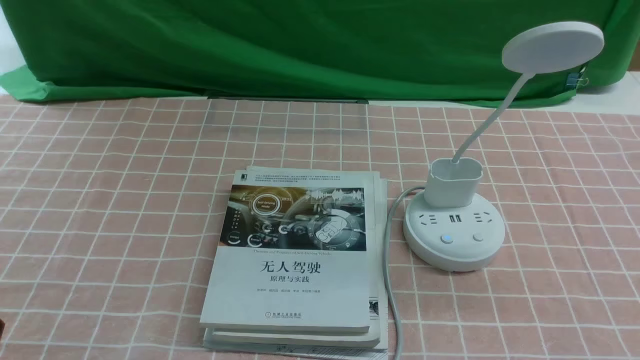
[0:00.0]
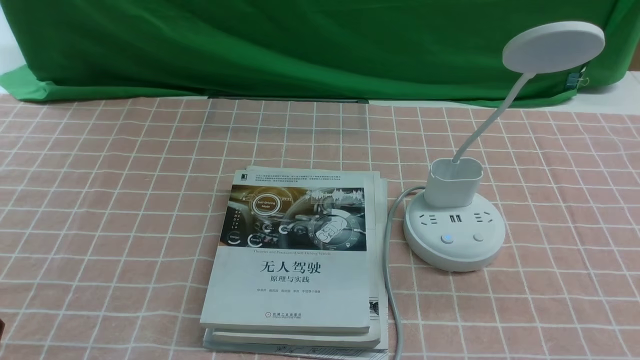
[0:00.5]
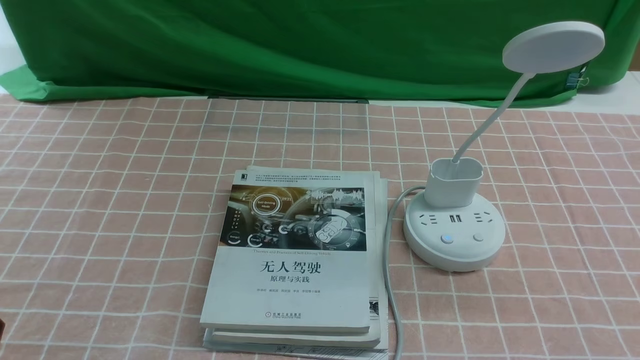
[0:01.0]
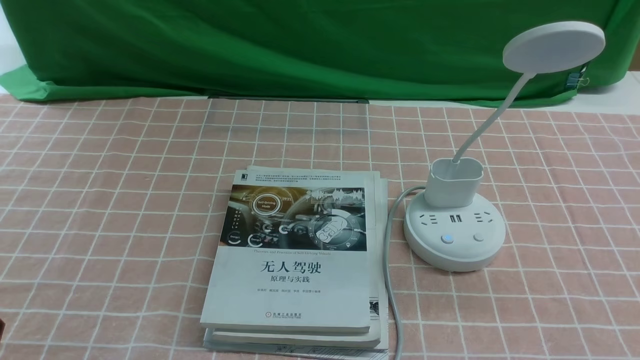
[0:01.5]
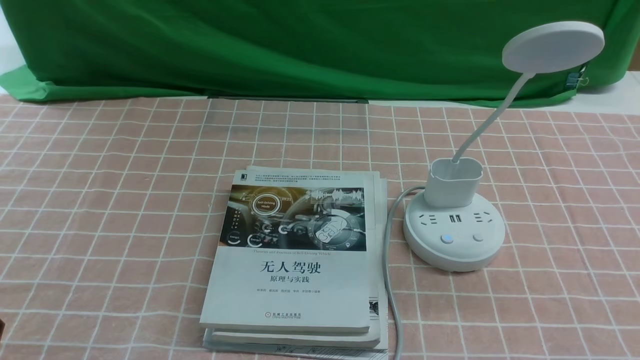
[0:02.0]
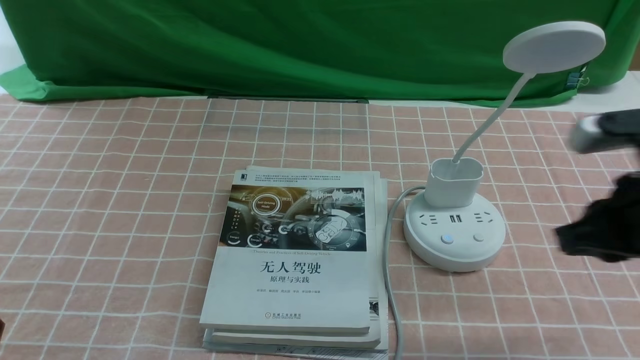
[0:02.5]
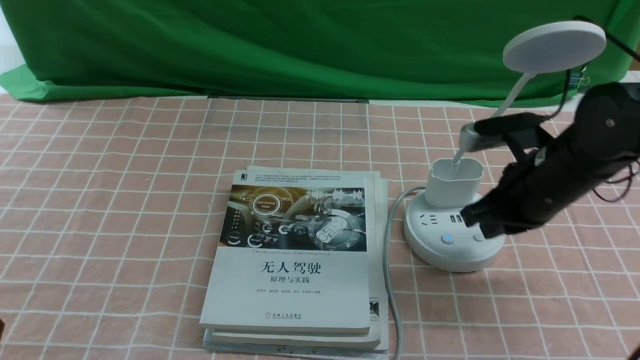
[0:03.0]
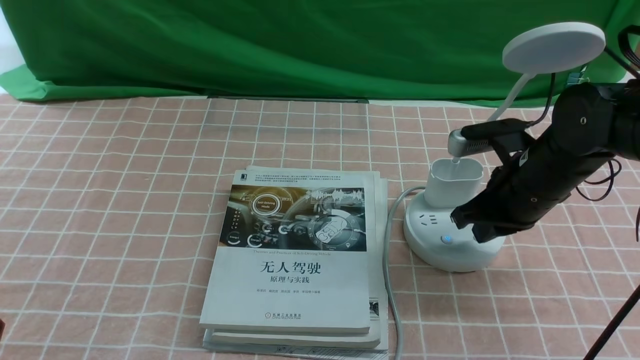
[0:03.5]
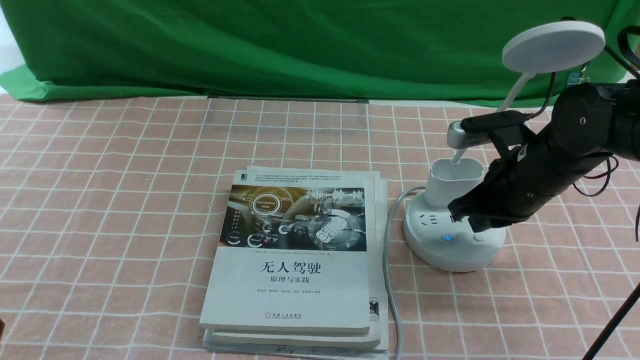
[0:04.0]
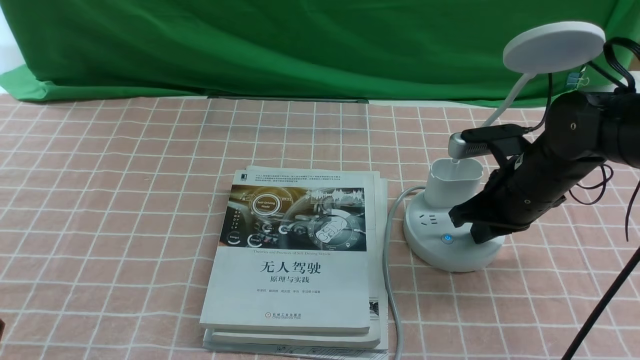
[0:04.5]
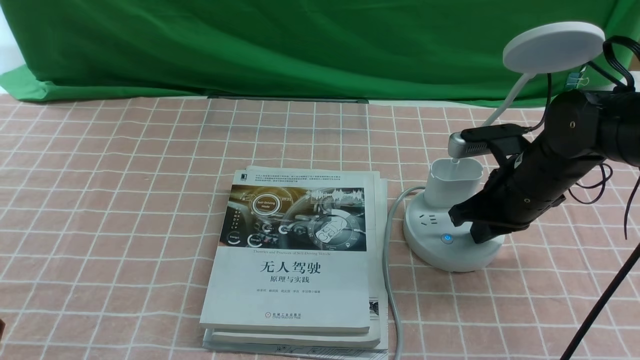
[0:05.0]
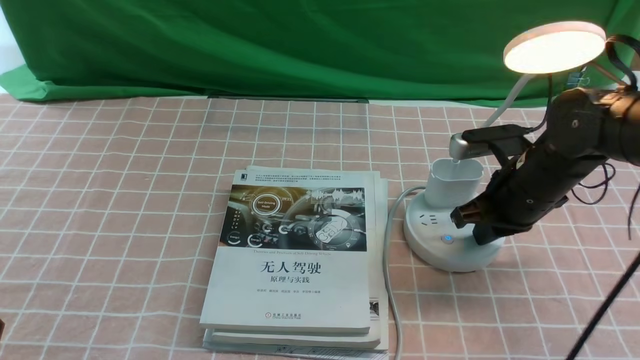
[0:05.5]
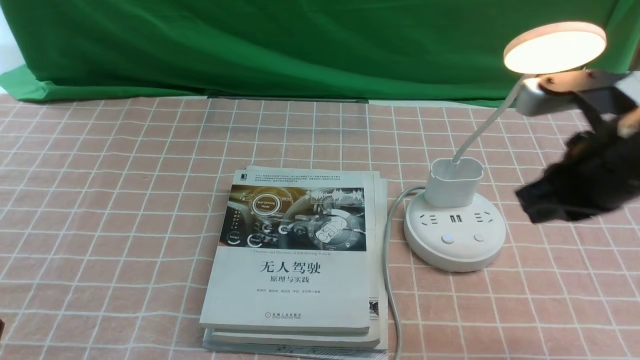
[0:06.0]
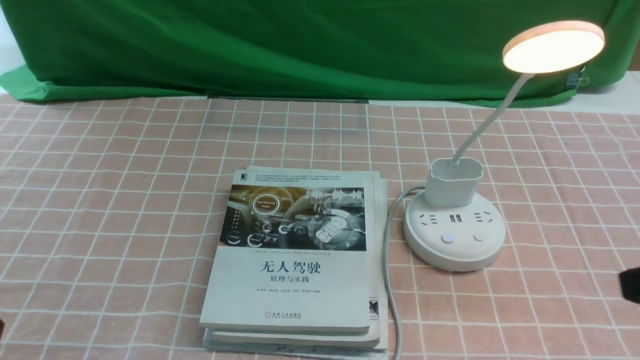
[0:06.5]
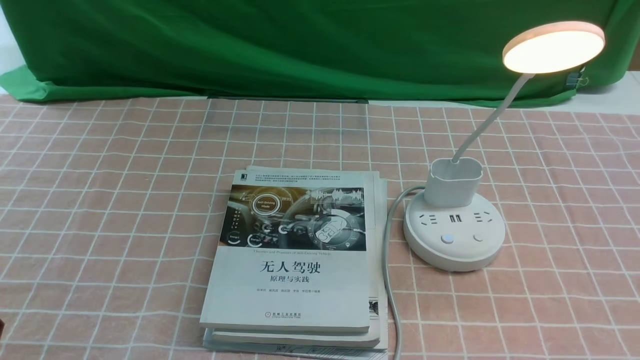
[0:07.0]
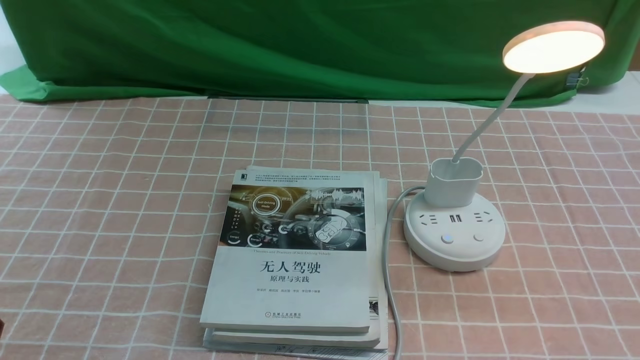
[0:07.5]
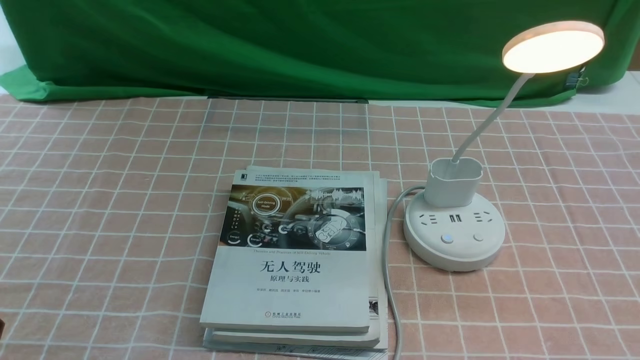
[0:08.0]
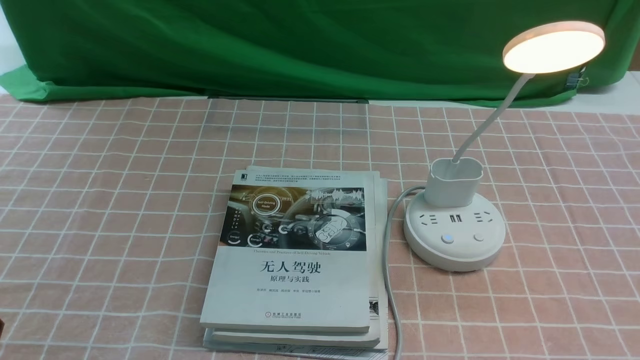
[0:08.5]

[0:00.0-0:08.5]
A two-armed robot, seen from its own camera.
Step, 0:00.0 to 0:05.5: use the right arm to press the button switch on the lamp holder.
0:02.0 to 0:04.0: The right gripper shifts roughly 25 cm forward and to the left.
0:04.0 to 0:06.5: The right gripper moves backward and upward, roughly 25 cm.

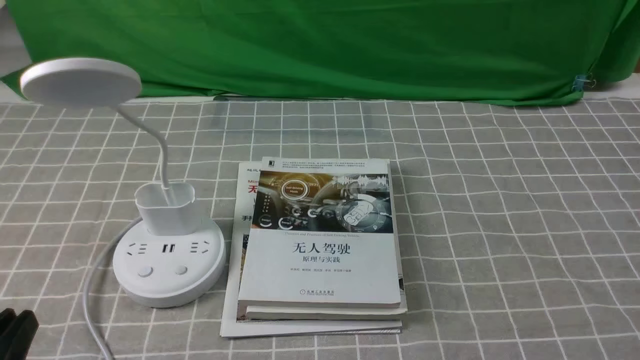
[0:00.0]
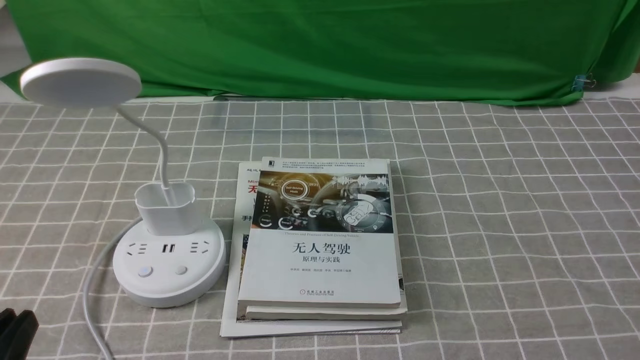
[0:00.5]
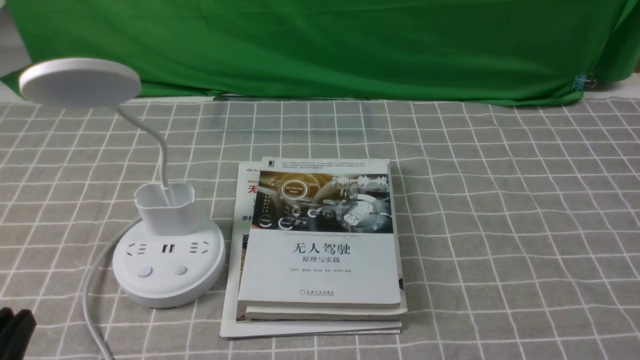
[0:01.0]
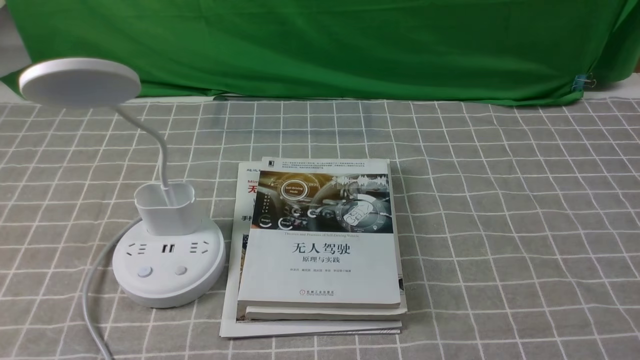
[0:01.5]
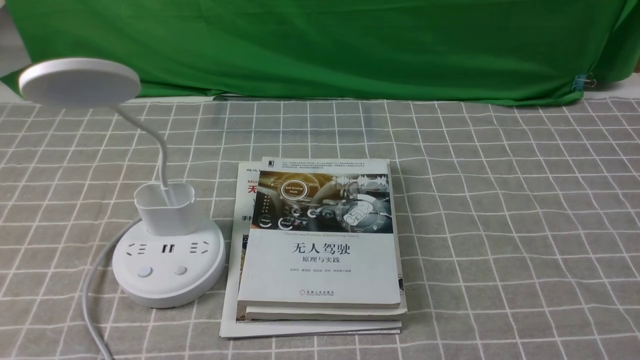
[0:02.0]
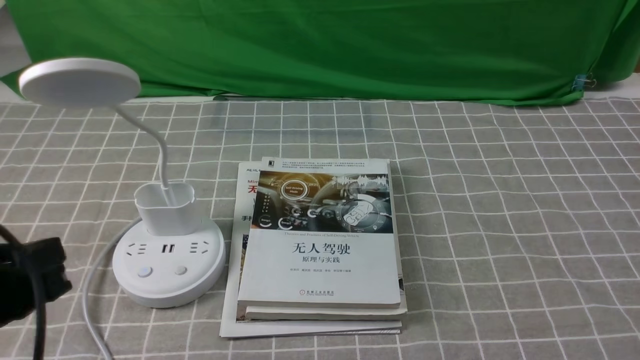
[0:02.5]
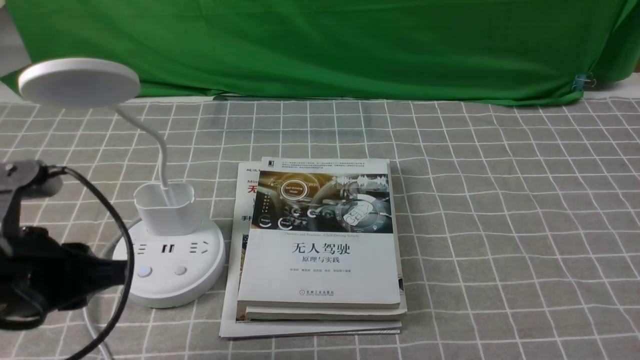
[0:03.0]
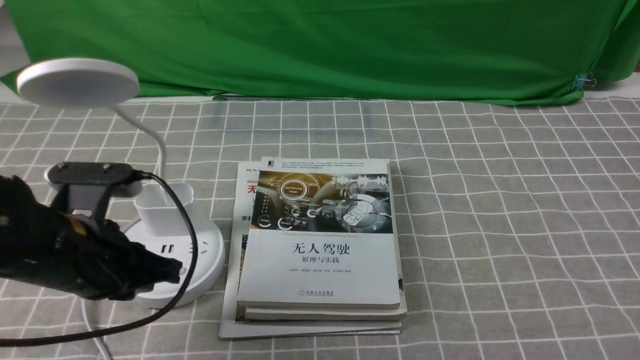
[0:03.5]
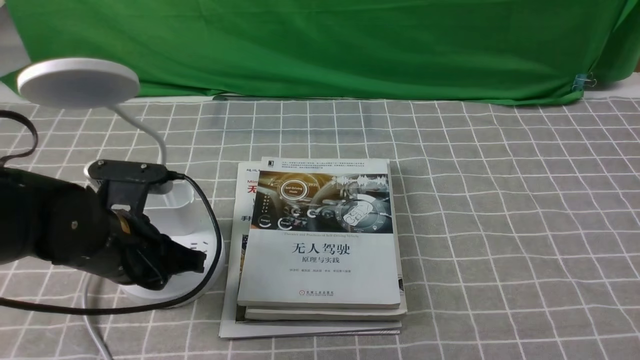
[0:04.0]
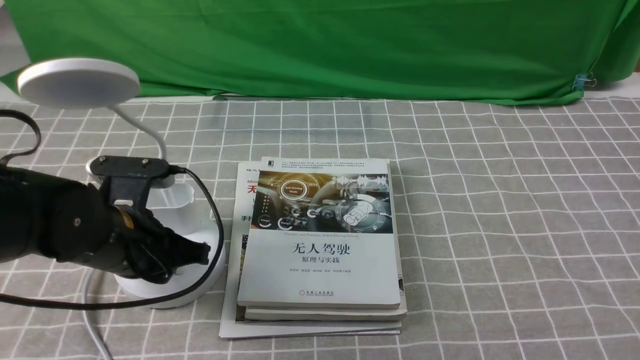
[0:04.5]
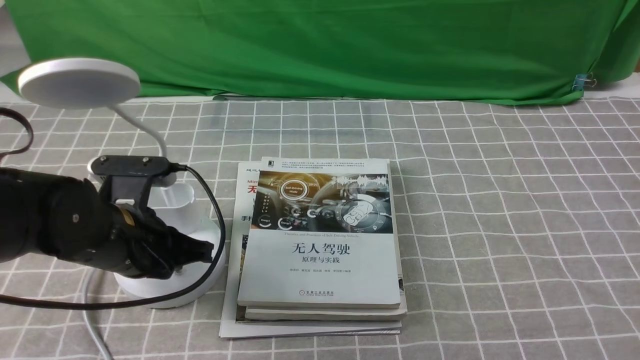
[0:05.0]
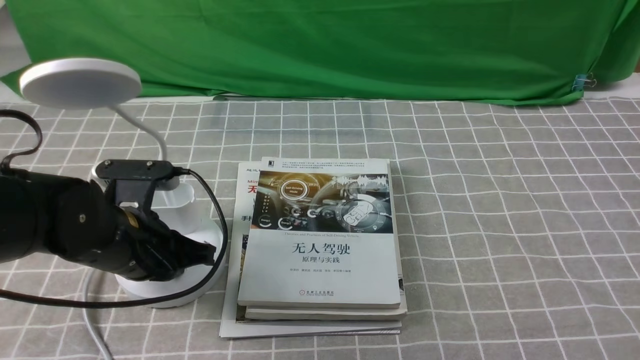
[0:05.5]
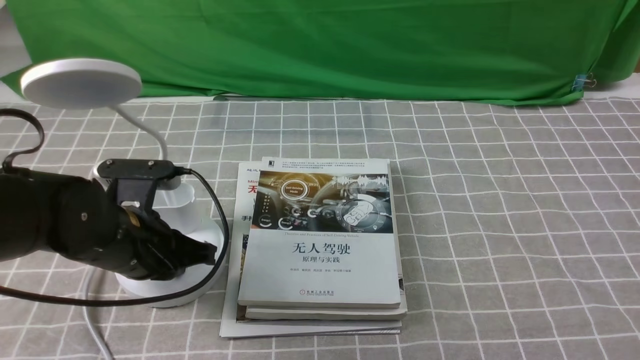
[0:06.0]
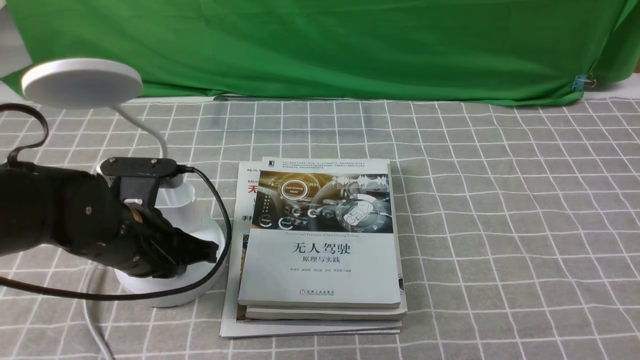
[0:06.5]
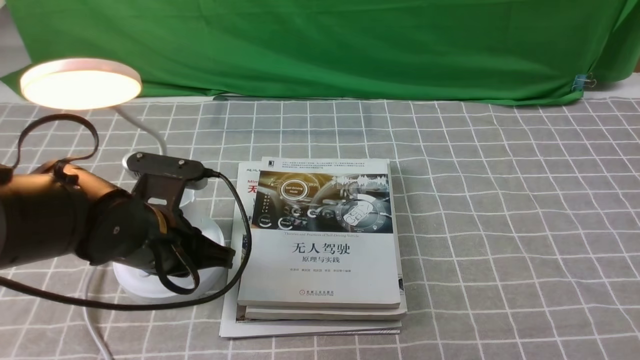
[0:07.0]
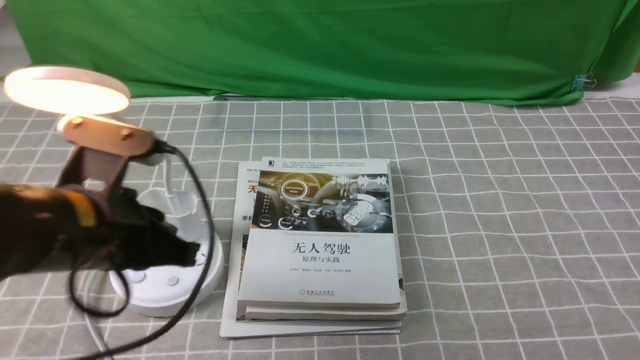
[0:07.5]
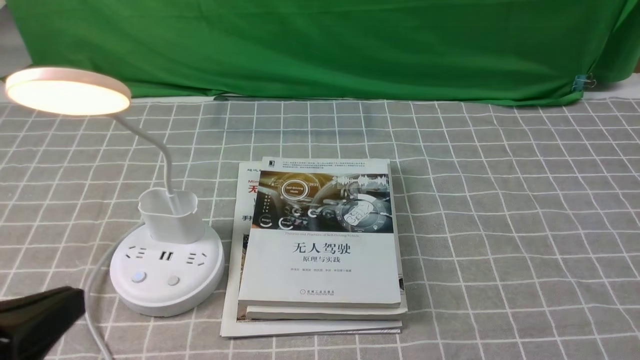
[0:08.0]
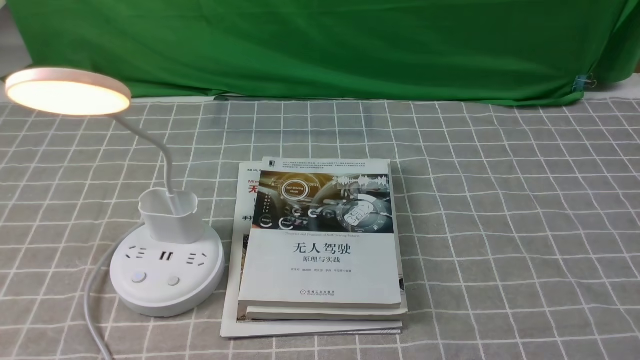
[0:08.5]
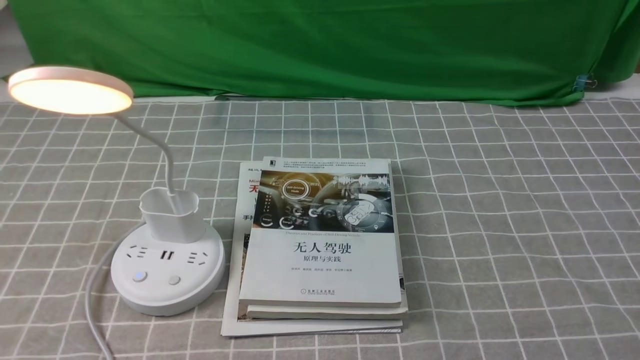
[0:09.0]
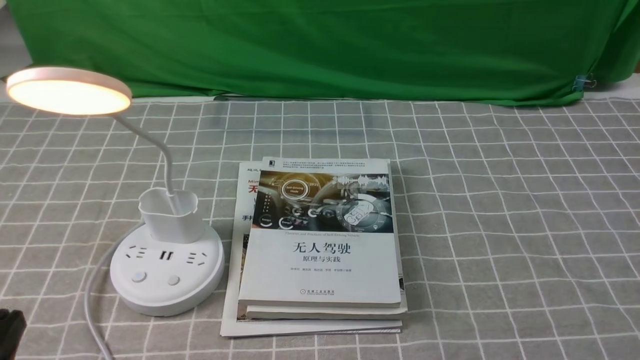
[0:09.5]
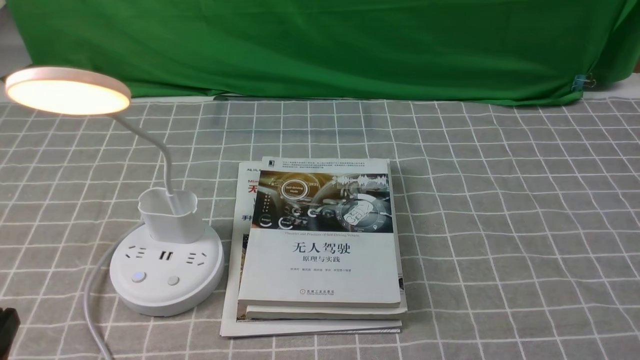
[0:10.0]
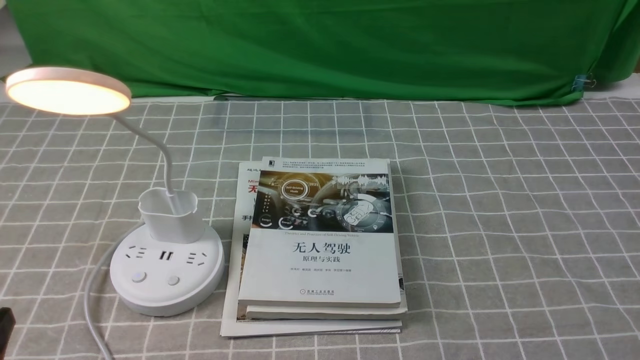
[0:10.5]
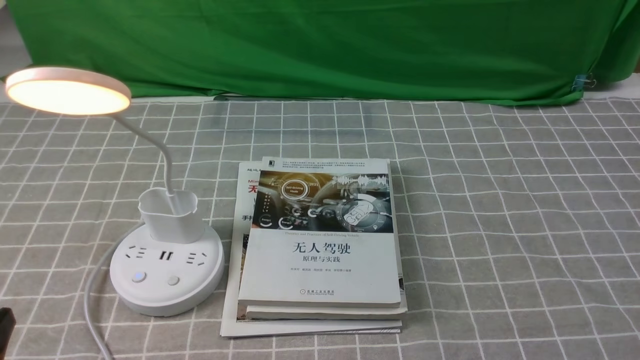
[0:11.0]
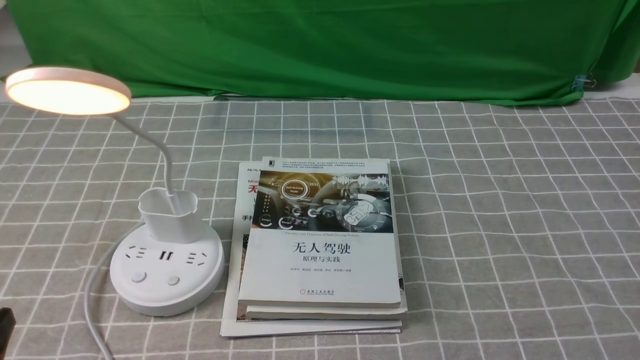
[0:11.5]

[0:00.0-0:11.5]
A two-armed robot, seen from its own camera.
Step, 0:00.0 to 0:07.0: use the left arm to press the button switch on the lamp holder.
0:02.0 to 0:04.0: The left gripper travels forward by roughly 20 cm, and closes.
0:04.0 to 0:06.0: The grippers make only small movements.
0:06.0 to 0:07.5: The left gripper travels upward by roughly 5 cm.
0:07.5 to 0:09.5: The left gripper is displaced backward and to the left by roughly 20 cm.
